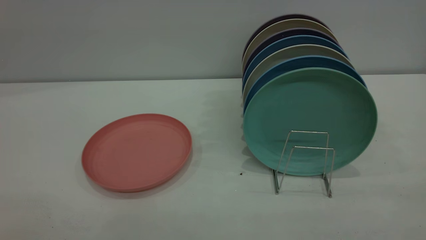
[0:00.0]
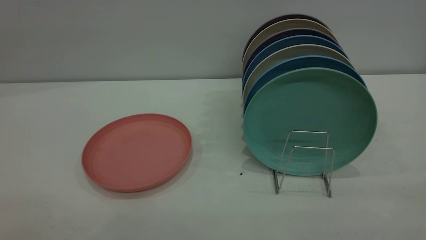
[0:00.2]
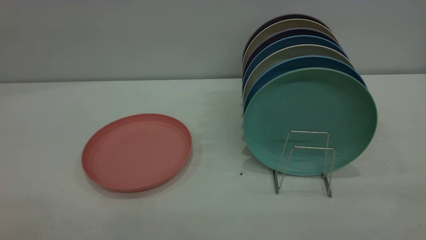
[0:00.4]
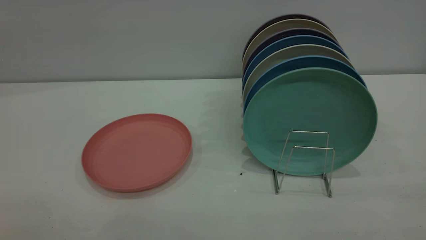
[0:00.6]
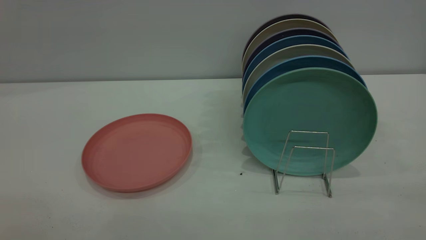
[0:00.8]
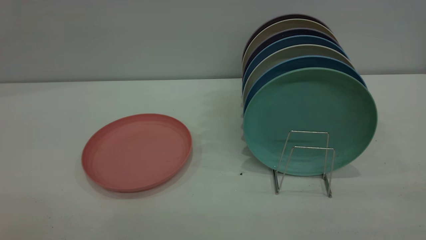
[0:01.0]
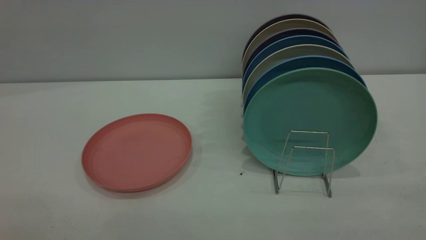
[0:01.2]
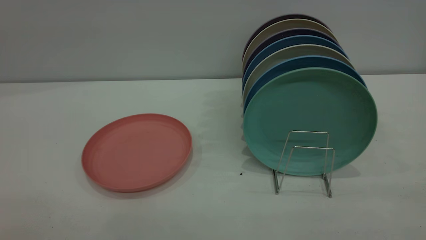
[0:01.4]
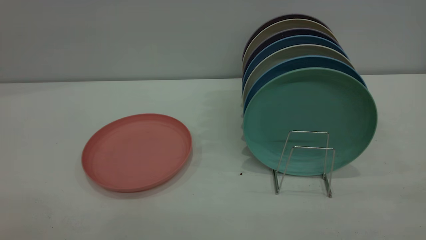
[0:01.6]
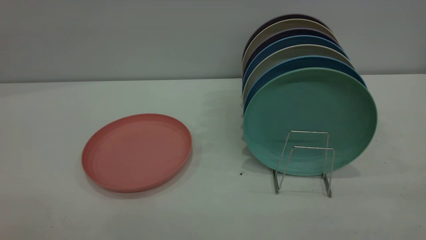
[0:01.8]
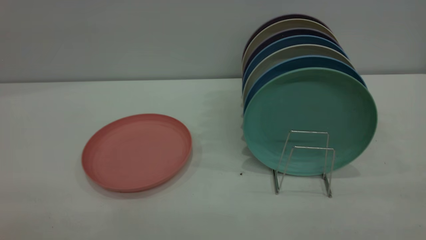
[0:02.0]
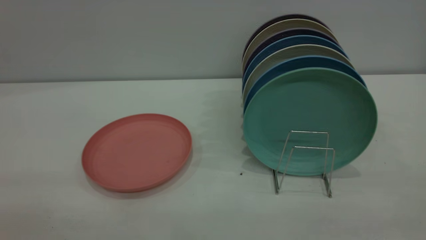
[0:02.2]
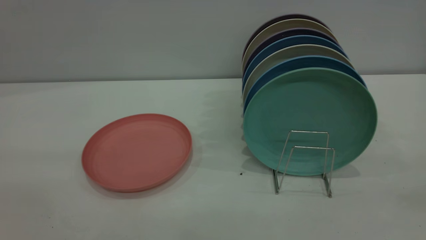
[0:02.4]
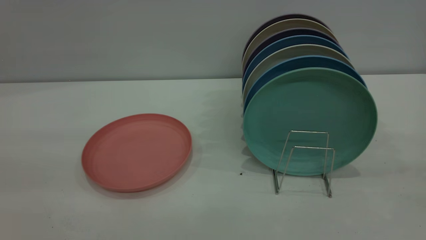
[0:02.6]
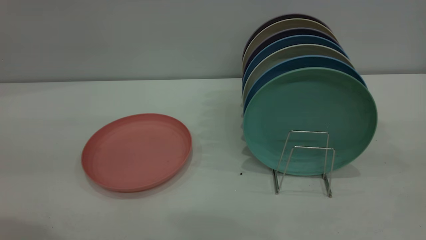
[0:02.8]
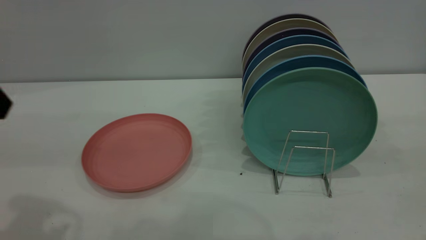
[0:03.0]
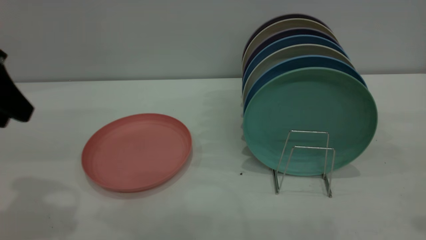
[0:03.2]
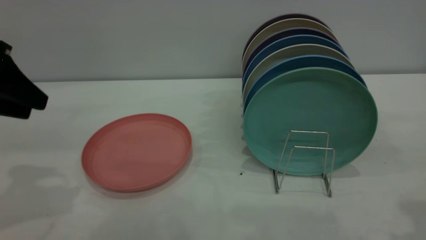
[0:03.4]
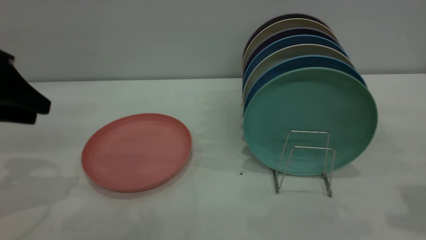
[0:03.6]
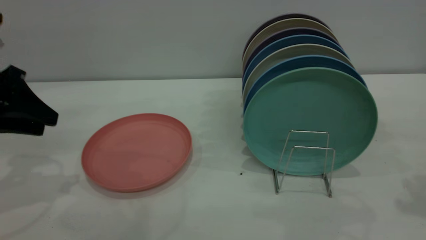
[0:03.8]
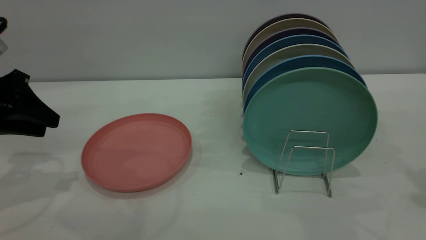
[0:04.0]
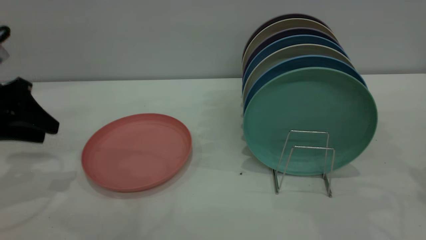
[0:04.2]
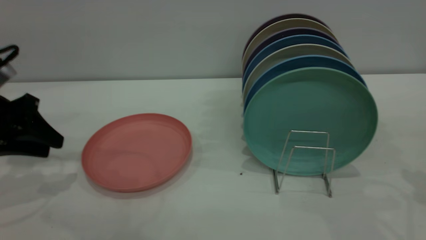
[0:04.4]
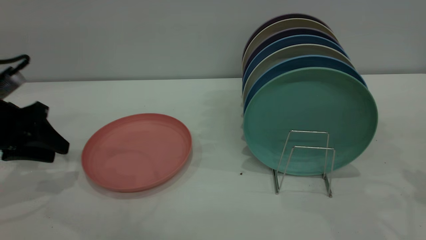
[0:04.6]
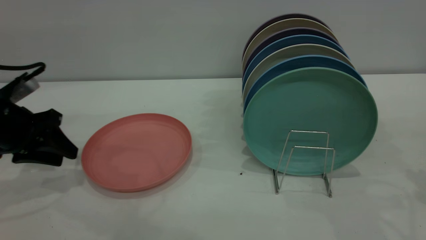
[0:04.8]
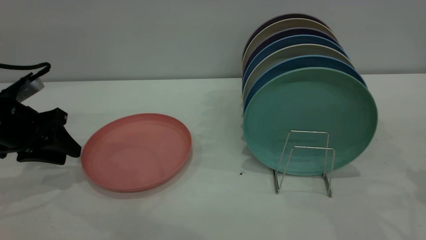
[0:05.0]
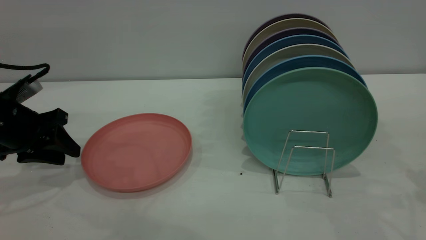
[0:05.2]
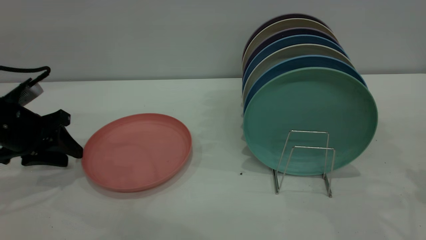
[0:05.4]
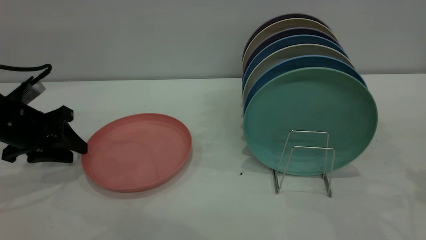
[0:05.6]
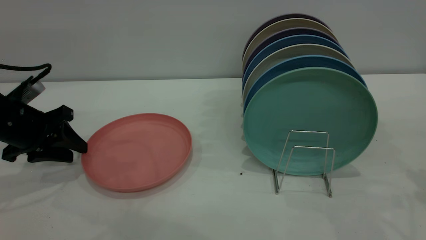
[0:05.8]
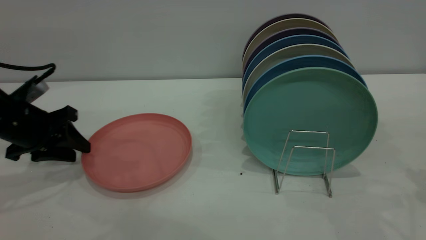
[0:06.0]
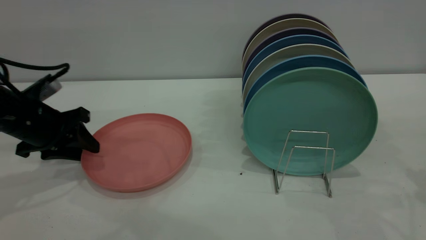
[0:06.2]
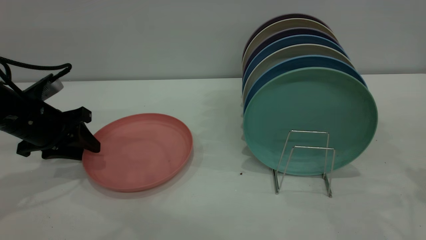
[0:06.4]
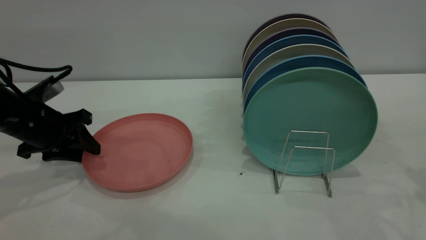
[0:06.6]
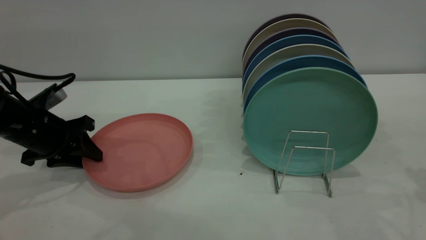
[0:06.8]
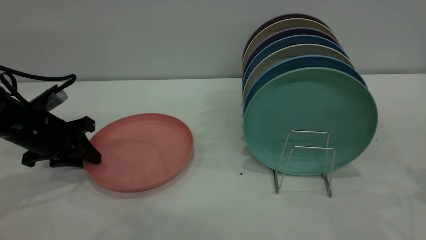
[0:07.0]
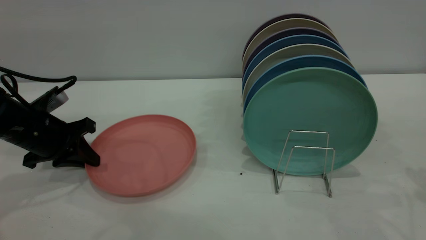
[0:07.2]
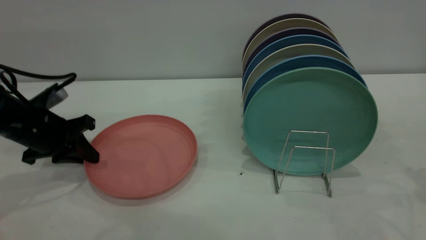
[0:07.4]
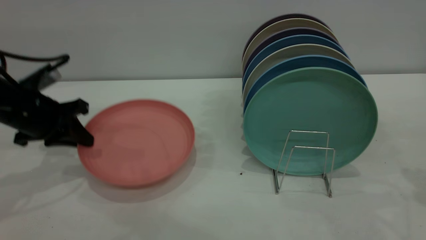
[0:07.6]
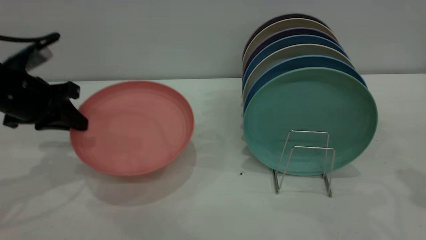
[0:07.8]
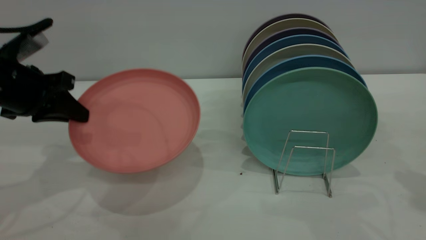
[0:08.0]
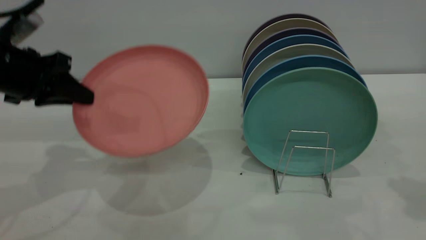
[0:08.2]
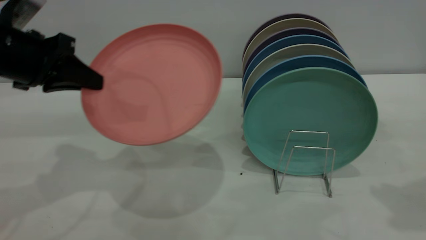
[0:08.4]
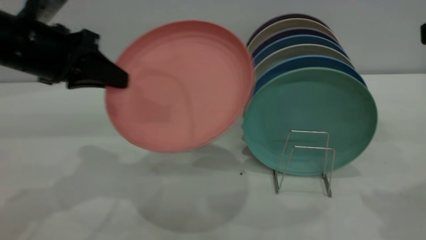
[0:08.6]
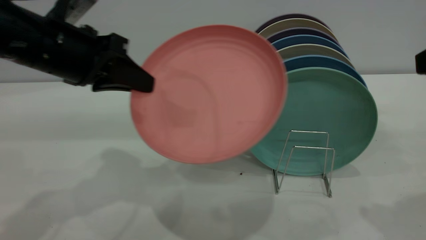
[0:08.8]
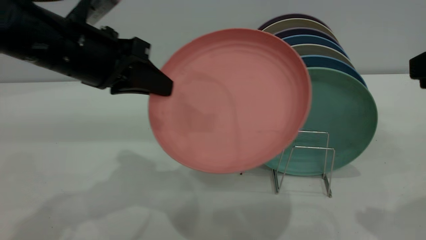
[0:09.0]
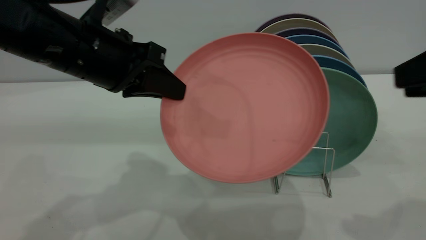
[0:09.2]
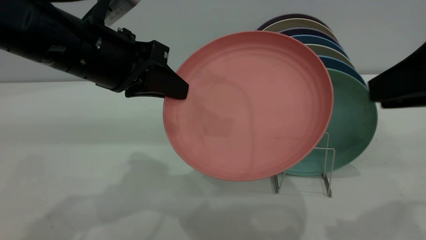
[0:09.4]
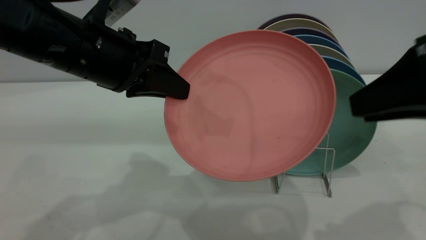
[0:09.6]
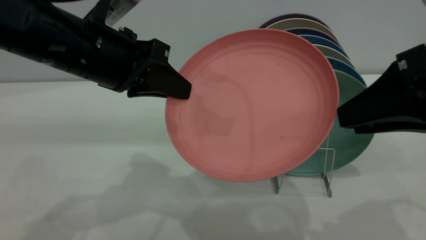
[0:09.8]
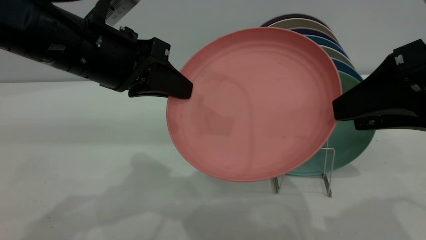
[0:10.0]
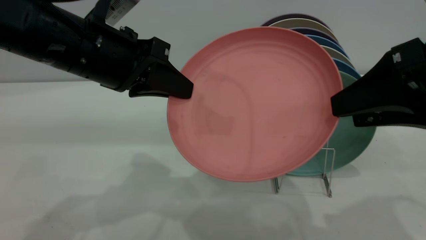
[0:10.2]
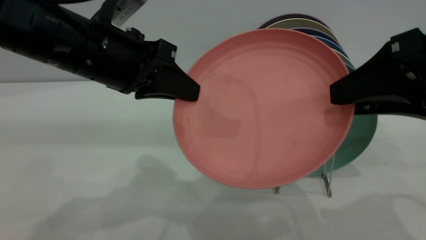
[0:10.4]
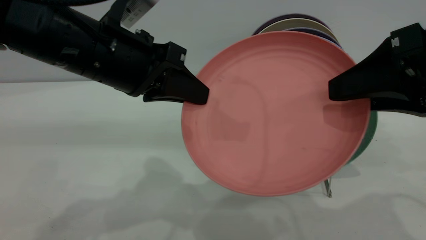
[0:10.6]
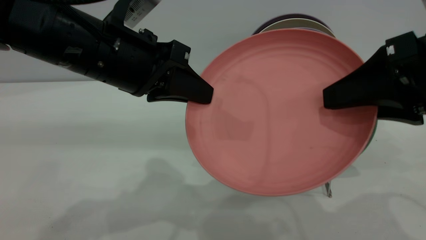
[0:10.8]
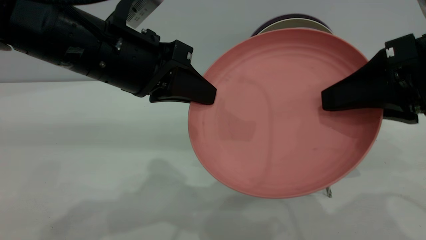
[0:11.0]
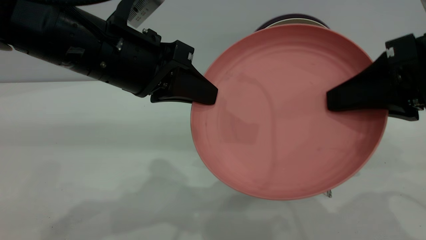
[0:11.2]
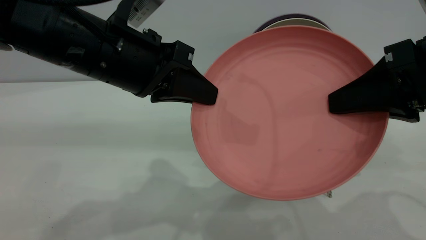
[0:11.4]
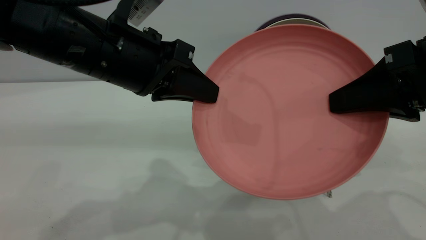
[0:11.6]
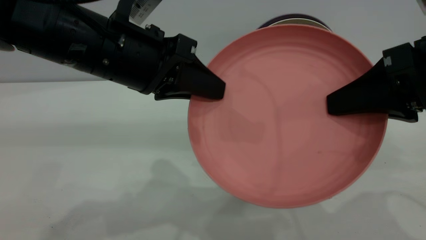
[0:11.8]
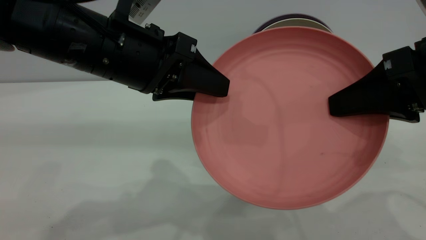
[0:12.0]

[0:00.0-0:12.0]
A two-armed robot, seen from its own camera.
Task of the whole recording: put the plate on the plate rack.
Step, 0:00.0 to 0:07.6: Pick up the plate with the left gripper.
0:00.0 to 0:01.6: Both grippers stay about where they are.
0:03.0 to 0:04.4: The left gripper heads downward, forward and to the left, covering about 20 cm.
0:04.4 to 0:06.0: The left gripper moves roughly 5 cm.
0:06.0 to 0:07.6: The left gripper closes up.
0:07.6 to 0:09.0: The left gripper shifts about 15 cm to the right and upward; the right gripper moves to the left and backward, some 10 cm.
0:09.0 to 0:10.4: The right gripper shifts approximately 5 cm to the left, and opens its fingers.
0:10.4 to 0:12.0: The right gripper closes, while the left gripper opens up.

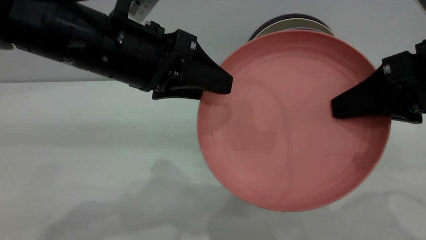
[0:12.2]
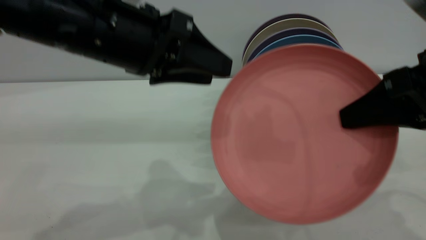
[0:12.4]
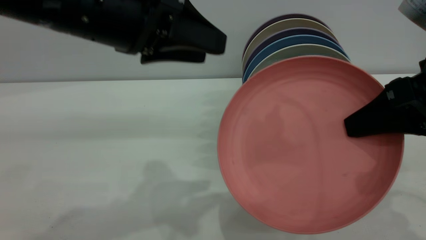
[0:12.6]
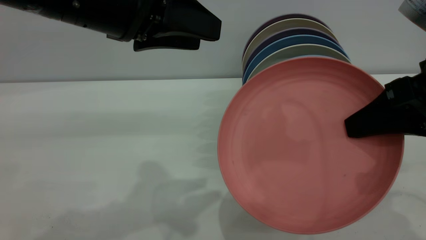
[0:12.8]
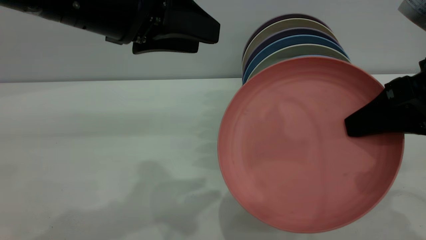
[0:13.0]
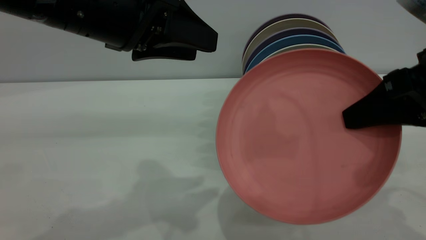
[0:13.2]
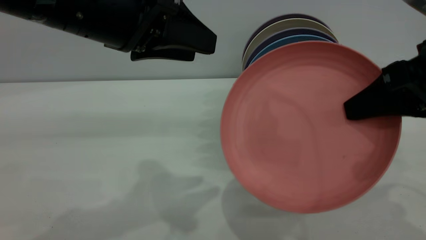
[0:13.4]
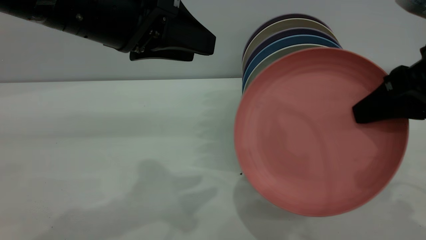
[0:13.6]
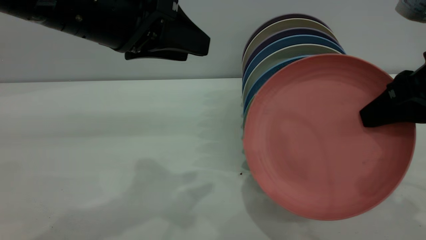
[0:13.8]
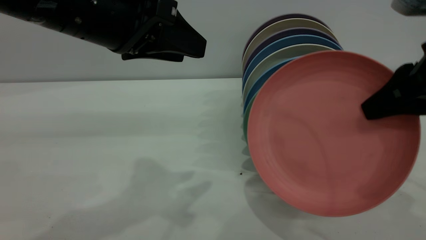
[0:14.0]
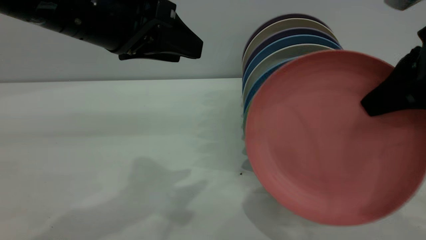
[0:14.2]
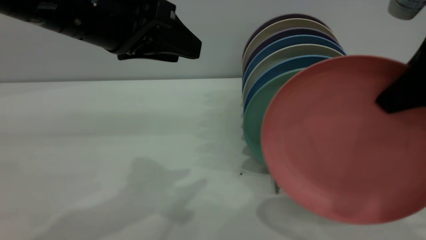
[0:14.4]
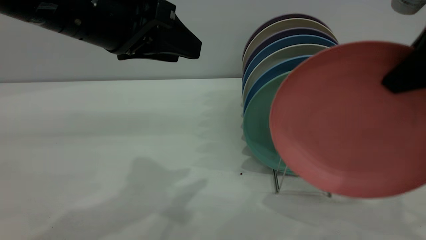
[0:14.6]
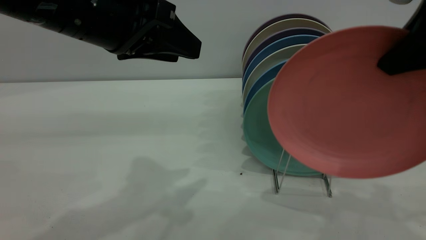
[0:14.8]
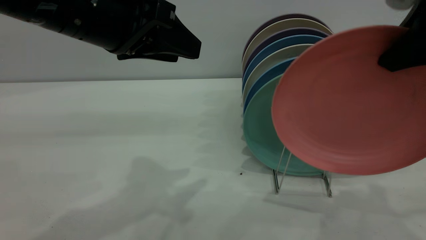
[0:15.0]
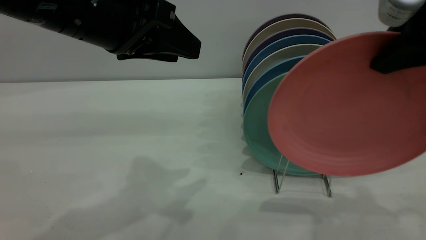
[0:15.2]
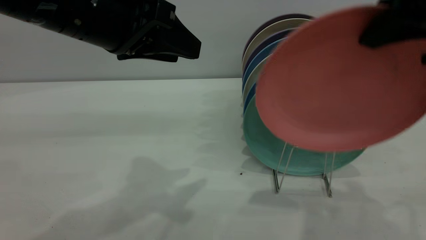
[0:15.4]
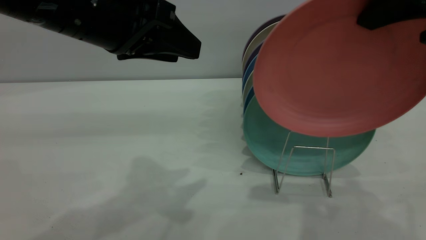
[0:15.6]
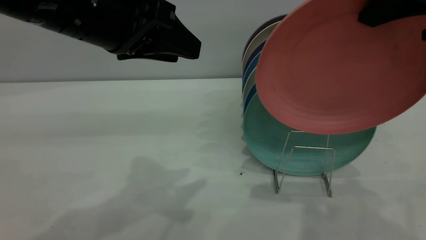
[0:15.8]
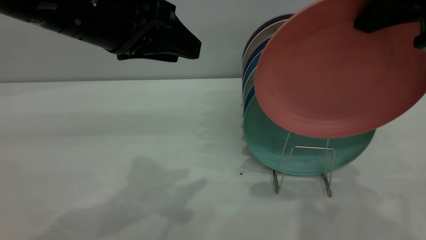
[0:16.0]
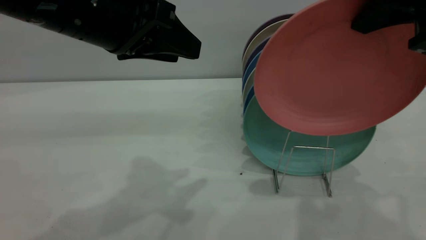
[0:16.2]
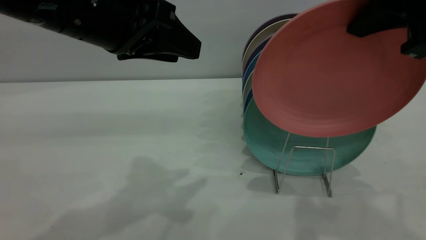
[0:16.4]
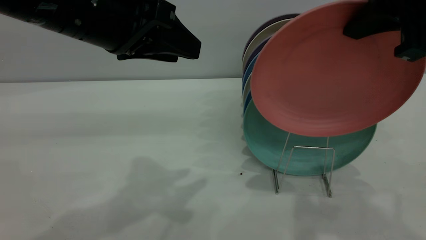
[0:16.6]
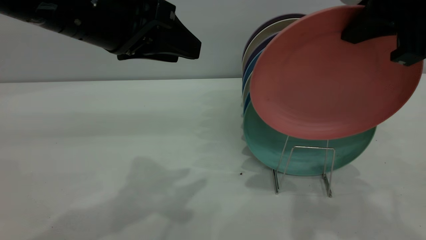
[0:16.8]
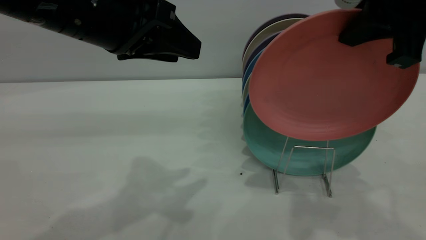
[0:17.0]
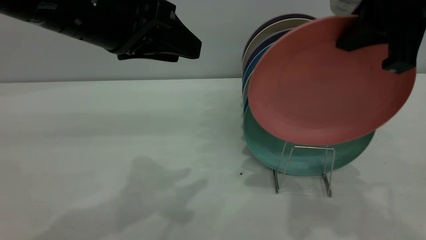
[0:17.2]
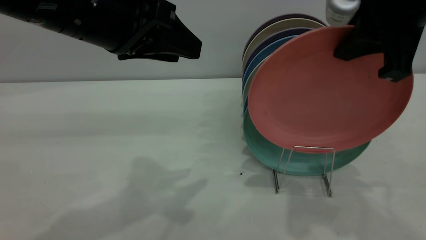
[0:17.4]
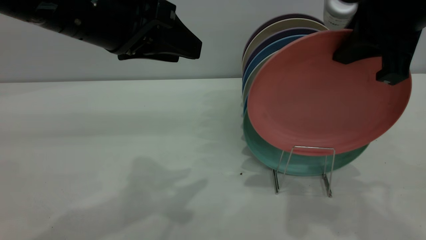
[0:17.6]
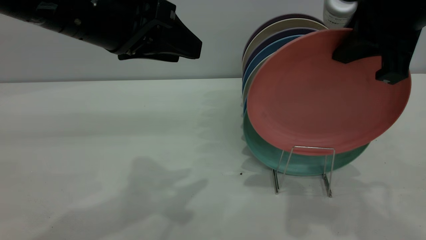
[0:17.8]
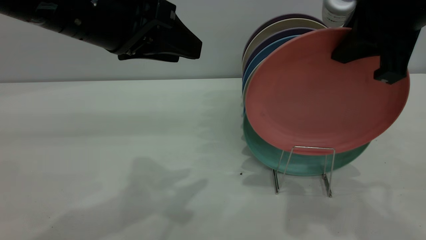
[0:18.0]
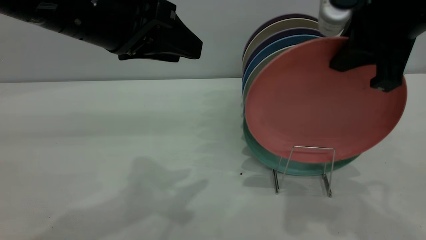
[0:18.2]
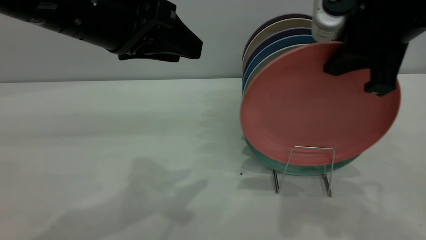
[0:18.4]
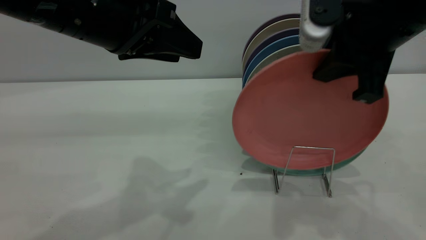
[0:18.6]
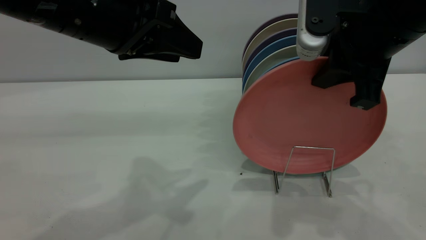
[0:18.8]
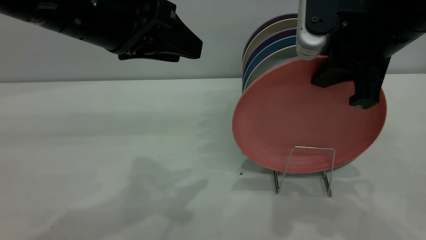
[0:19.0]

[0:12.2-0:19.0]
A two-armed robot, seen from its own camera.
Task of the whole recording: put the plate on the plate rack.
0:13.6 to 0:15.0: The right gripper moves upward, about 10 cm.
0:15.0 to 0:17.6: The grippers move only a little.
0:17.6 to 0:19.0: The grippers make only small movements.
